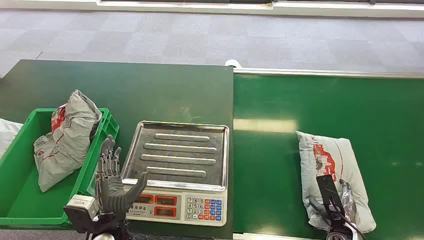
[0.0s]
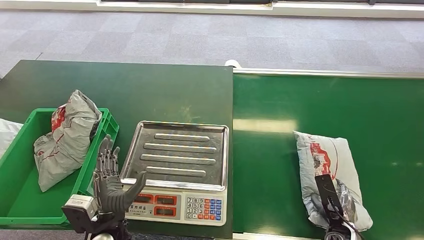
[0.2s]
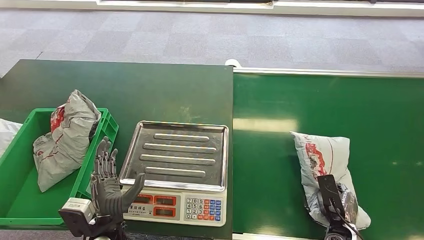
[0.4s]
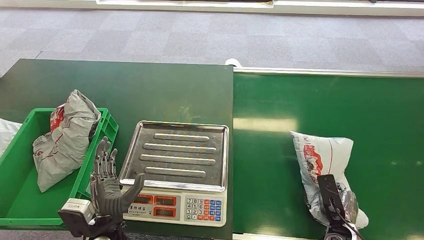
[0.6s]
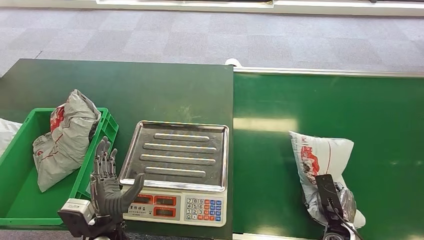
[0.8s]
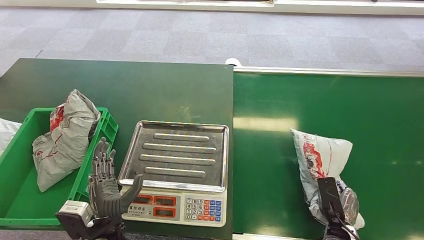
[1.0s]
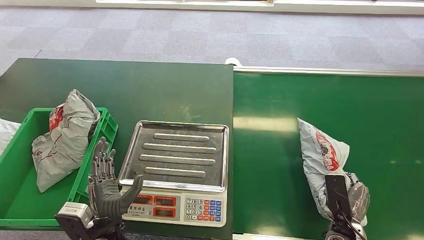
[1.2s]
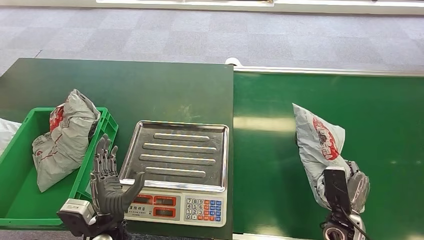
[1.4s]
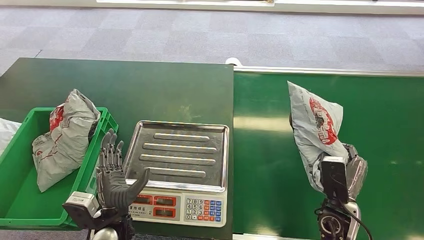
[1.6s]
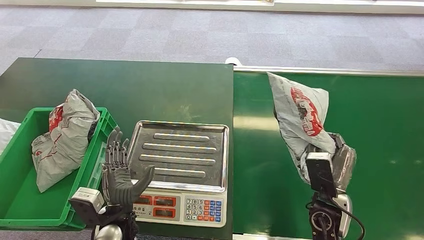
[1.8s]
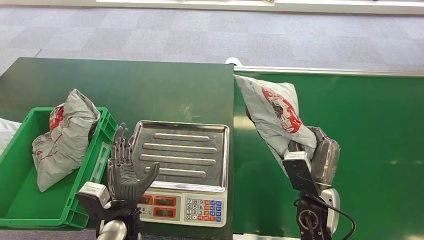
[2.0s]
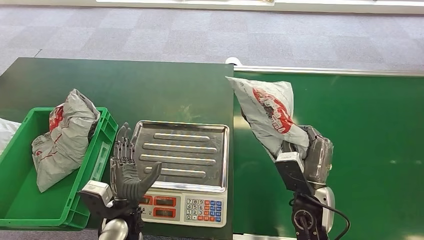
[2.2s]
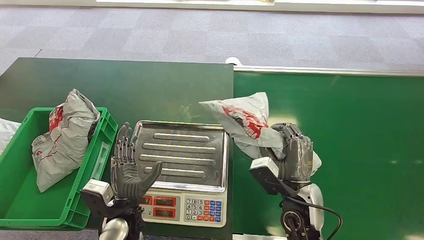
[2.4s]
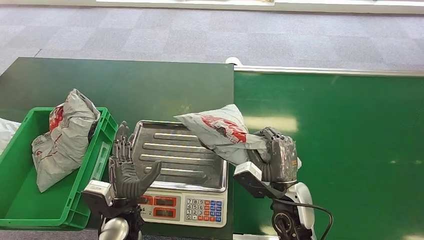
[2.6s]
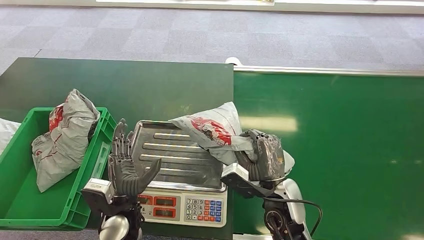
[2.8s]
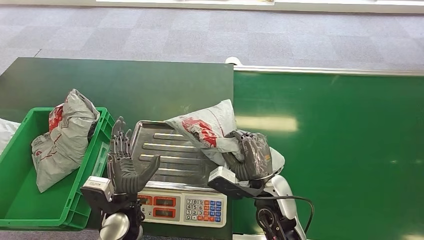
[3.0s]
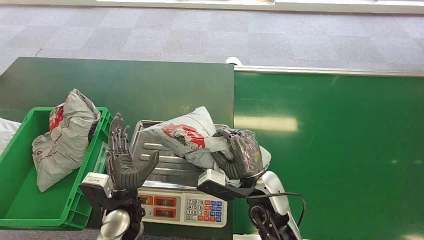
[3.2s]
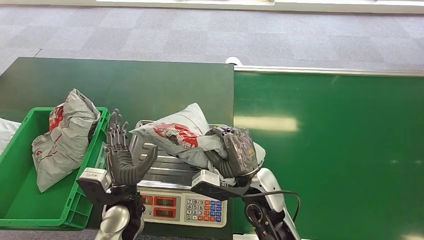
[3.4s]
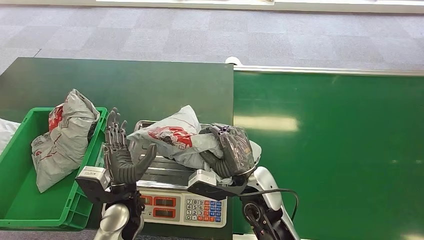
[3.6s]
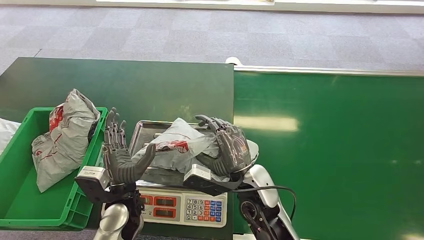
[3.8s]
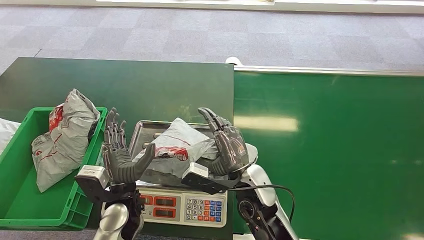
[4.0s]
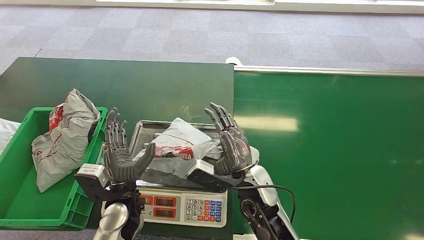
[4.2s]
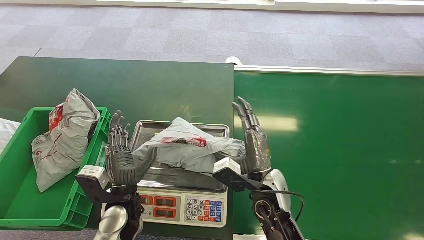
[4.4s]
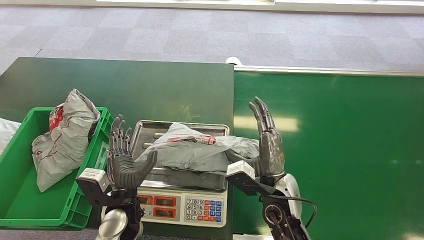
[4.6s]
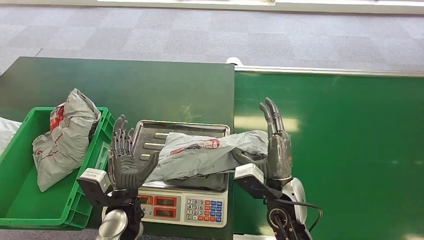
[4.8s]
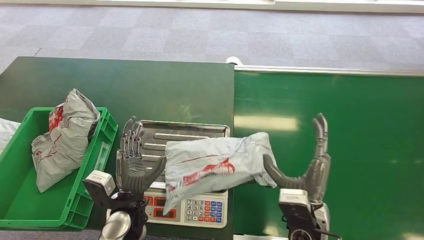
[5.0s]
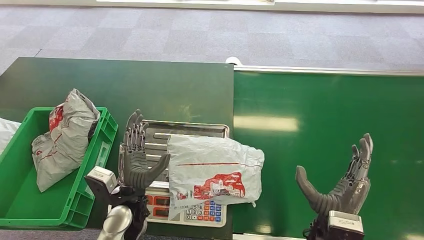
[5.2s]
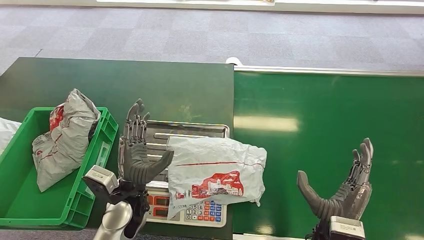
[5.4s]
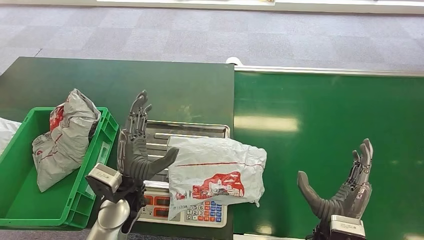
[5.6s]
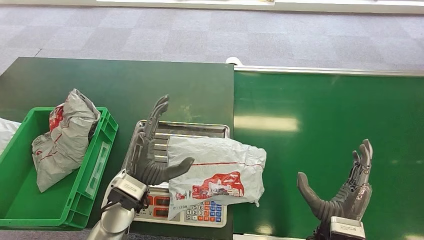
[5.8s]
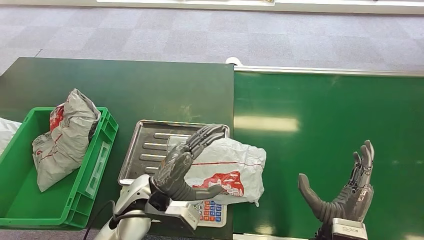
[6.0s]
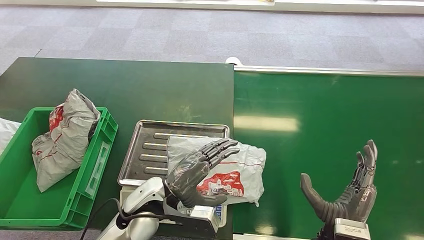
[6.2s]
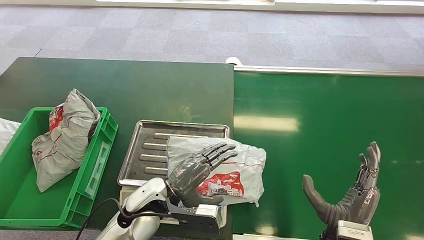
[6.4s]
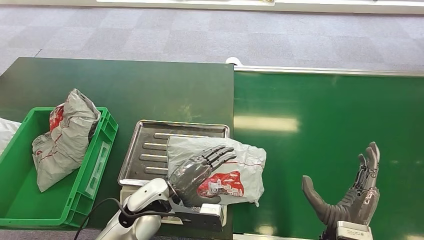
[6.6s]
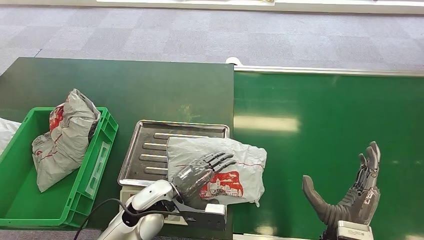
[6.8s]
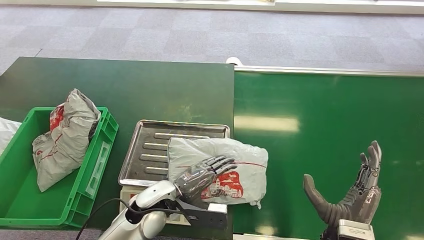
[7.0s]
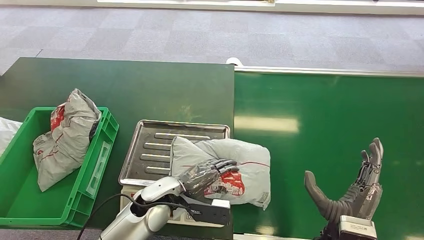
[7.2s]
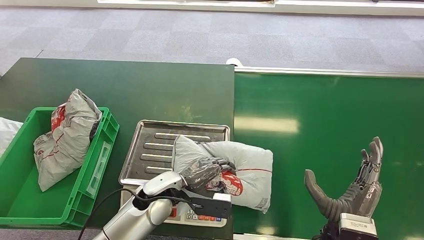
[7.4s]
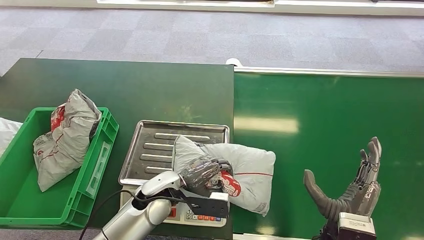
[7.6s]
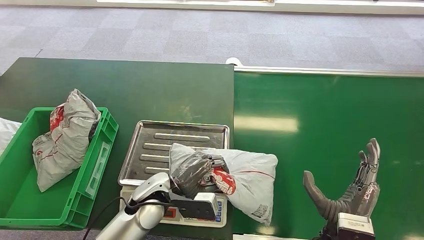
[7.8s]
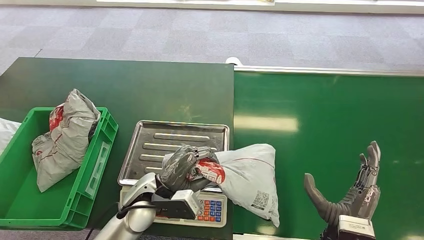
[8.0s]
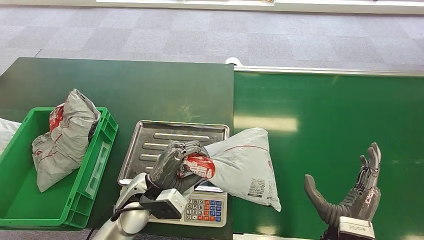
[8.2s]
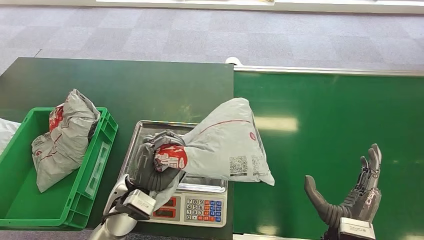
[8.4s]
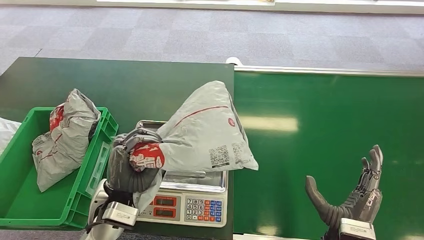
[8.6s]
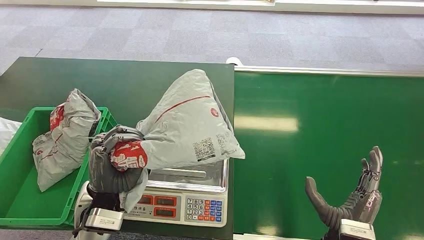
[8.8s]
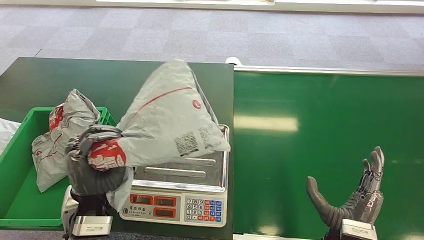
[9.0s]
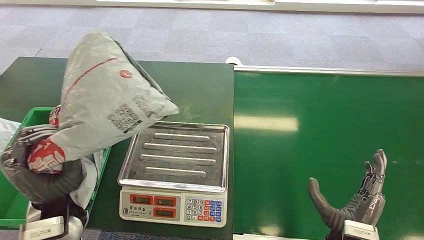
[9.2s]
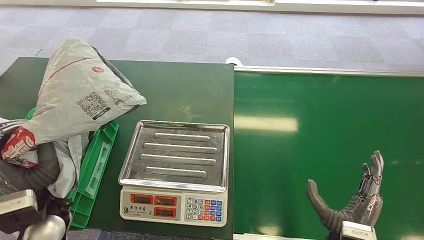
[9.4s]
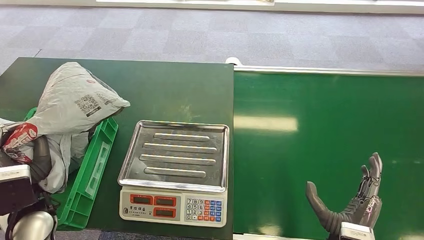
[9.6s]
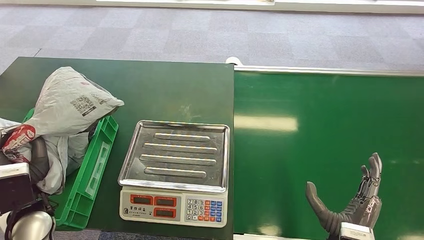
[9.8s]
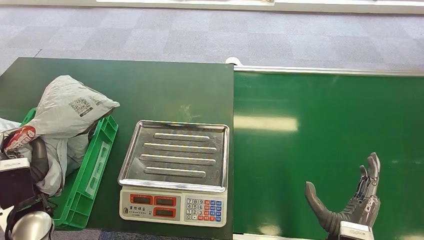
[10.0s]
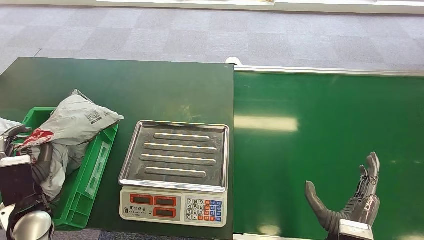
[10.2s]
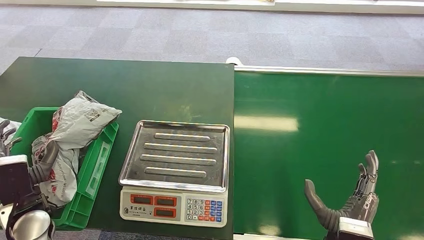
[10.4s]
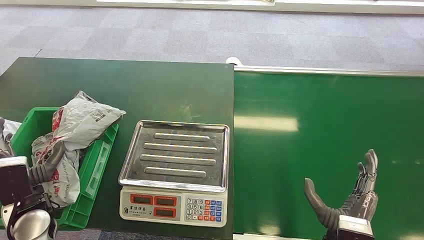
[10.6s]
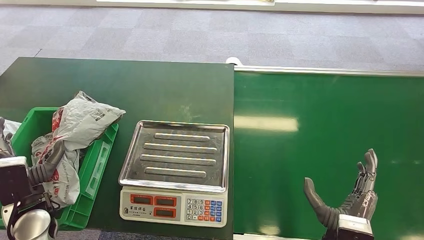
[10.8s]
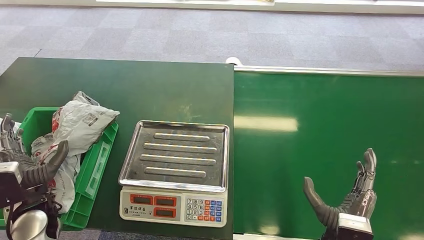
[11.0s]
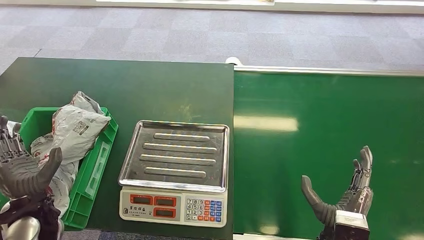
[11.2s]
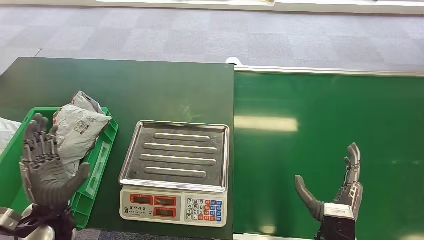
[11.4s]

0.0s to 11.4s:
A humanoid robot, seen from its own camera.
Step, 0.0s to 1.8s: Pick up the package from the conveyor belt.
Step, 2.0s to 5.8s: Place the package onto the inbound machine.
Step, 9.8s to 11.2s: Place the package into the parcel locker.
2.8s to 4.2s: The right hand moves to the left, some 5 cm.
4.2s to 5.6s: The right hand heads to the right and backward, covering about 15 cm.
5.6s to 7.2s: The left hand is displaced to the right and downward by approximately 10 cm.
7.2s to 8.6s: The left hand shifts some 10 cm to the left and upward.
10.0s to 11.4s: The left hand changes place by roughly 5 cm.

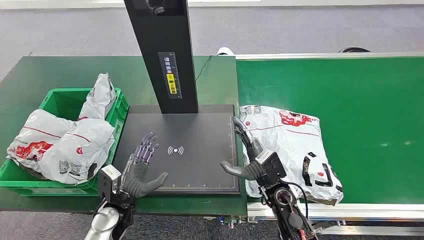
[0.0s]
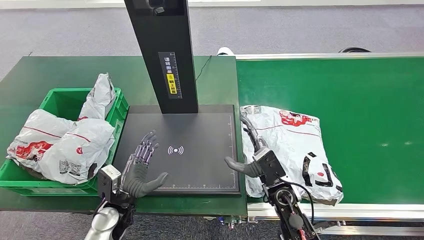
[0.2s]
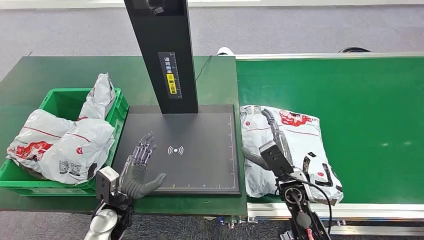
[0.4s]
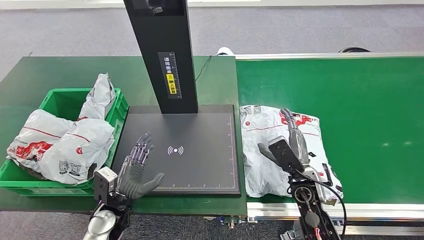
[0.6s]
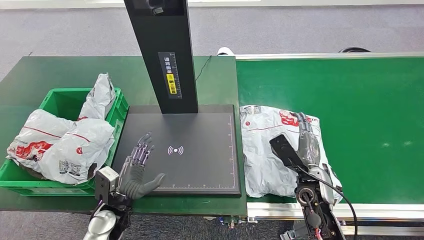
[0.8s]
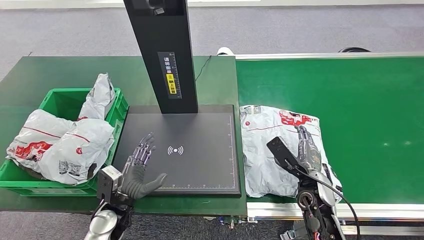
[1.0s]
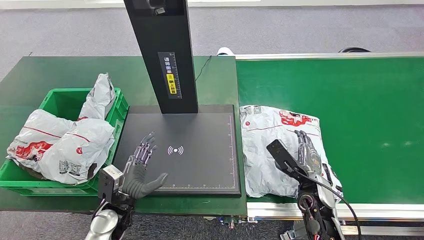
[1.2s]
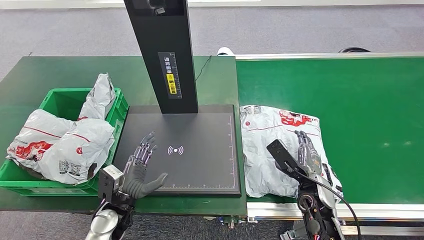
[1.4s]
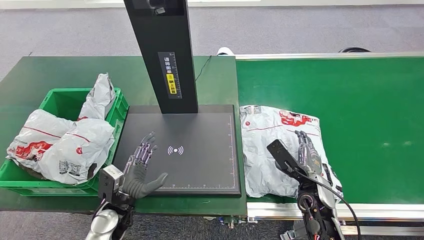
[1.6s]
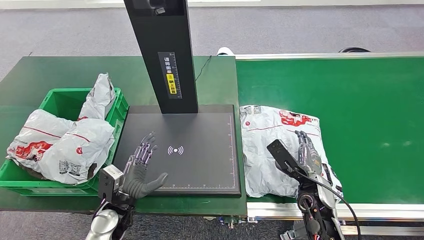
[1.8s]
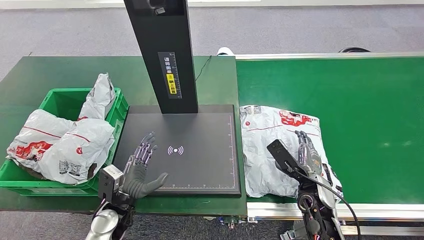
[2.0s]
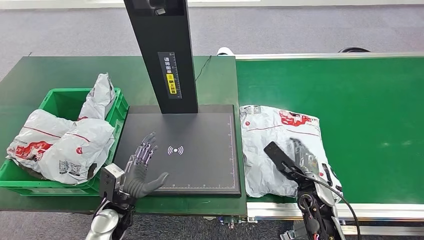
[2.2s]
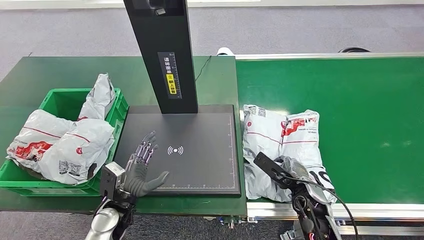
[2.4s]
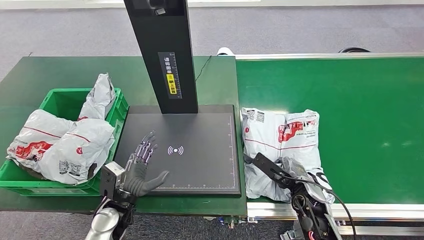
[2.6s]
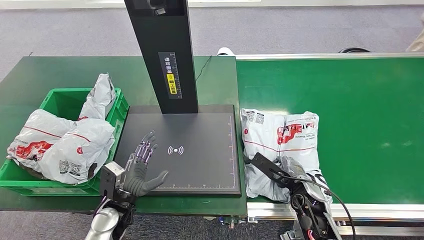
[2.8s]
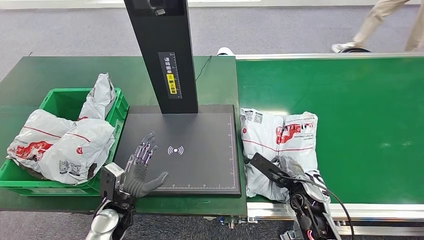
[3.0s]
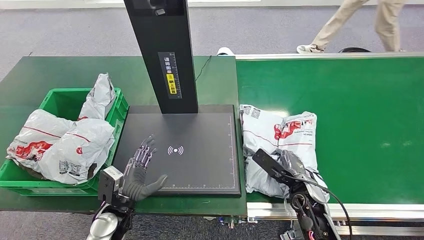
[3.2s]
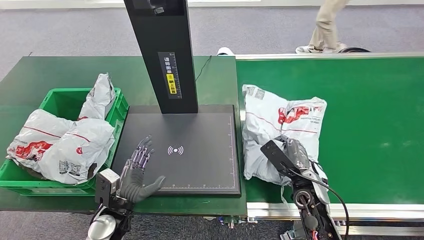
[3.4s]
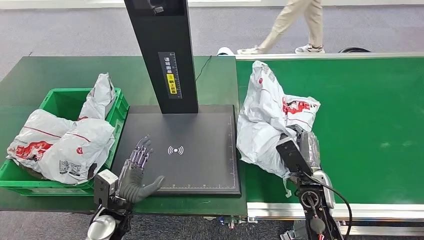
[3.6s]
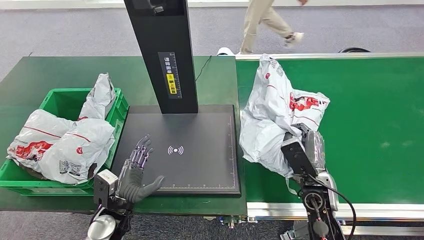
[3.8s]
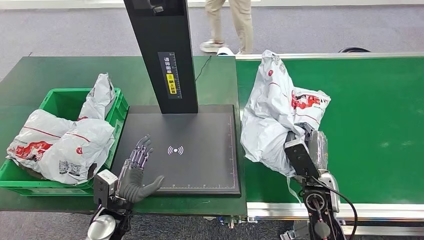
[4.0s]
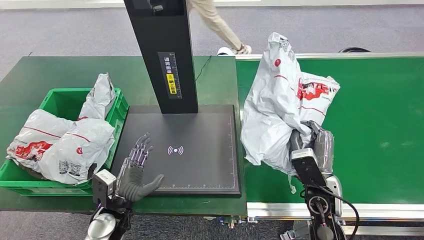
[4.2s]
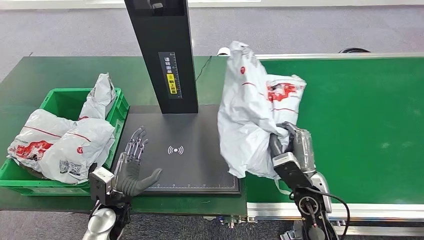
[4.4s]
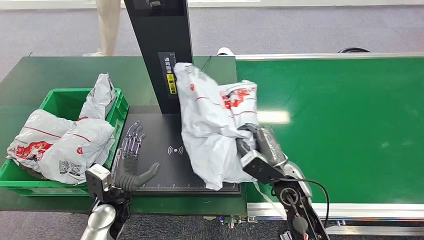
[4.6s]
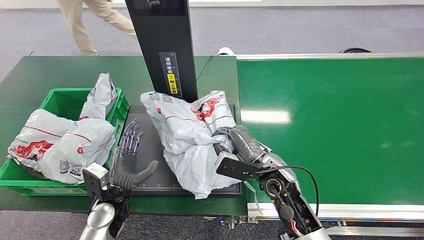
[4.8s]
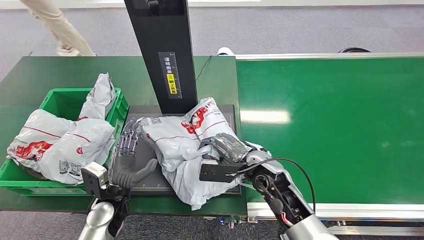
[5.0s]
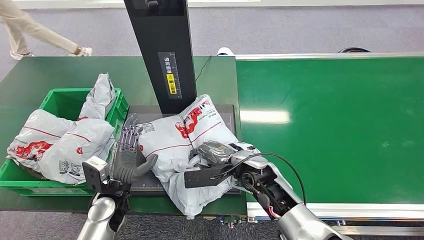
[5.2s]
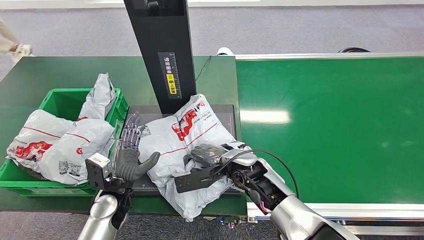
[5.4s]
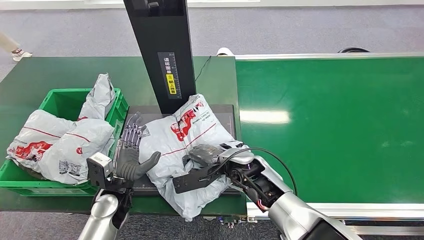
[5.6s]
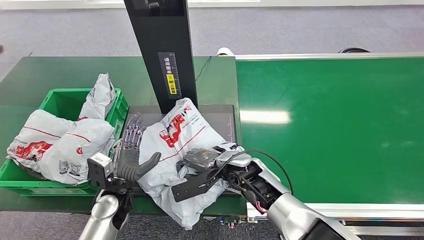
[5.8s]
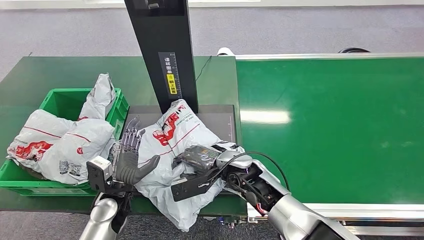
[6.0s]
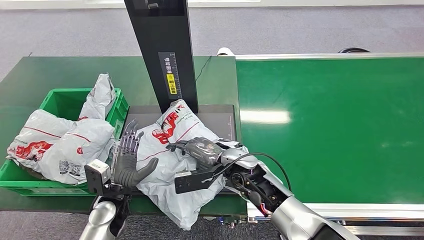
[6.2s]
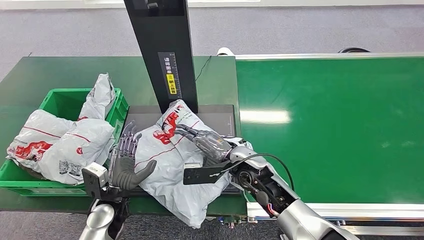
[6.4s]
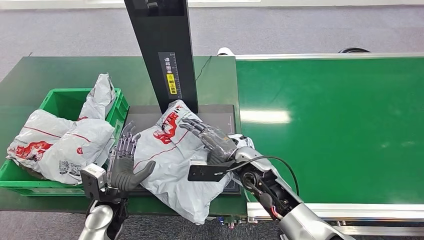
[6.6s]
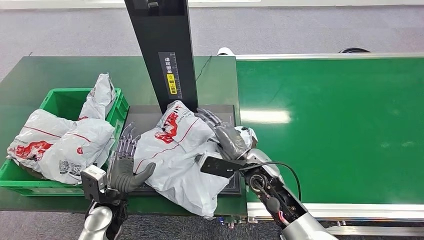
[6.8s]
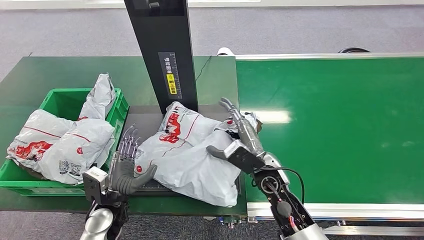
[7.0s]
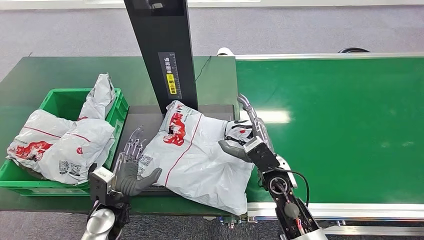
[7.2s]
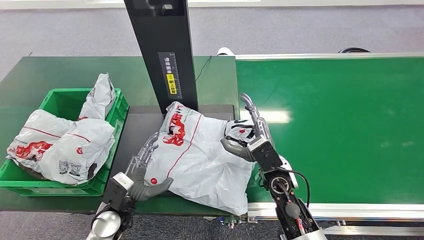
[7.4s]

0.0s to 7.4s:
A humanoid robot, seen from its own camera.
Step, 0.0s to 4.2s: Pick up the package from the conveyor belt.
3.0s to 4.4s: The right hand heads upward, covering approximately 10 cm.
6.0s to 7.4s: The right hand heads to the right, covering approximately 10 cm.
